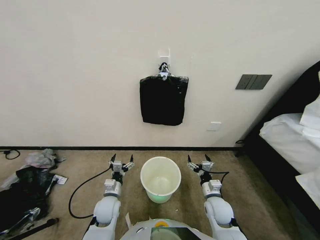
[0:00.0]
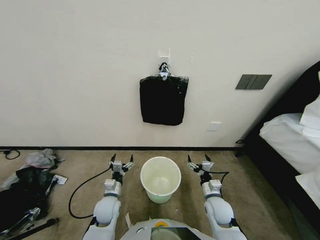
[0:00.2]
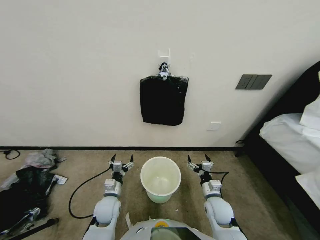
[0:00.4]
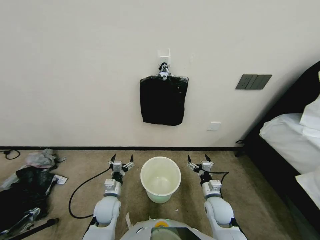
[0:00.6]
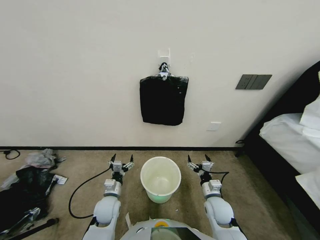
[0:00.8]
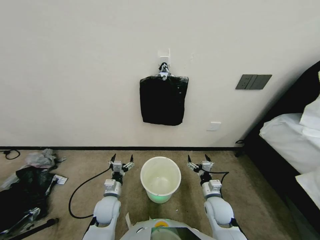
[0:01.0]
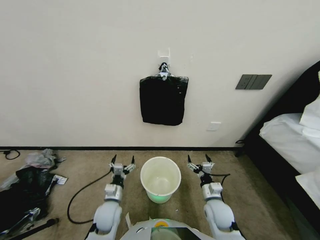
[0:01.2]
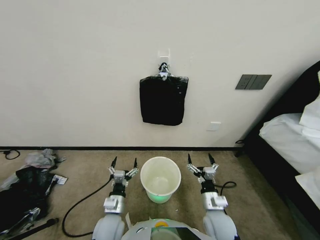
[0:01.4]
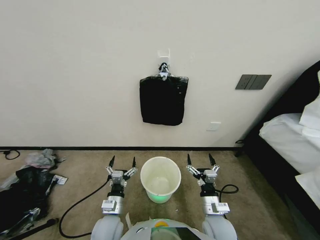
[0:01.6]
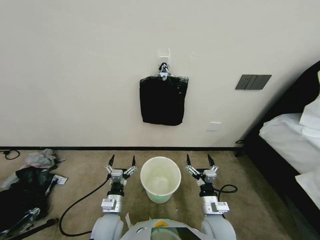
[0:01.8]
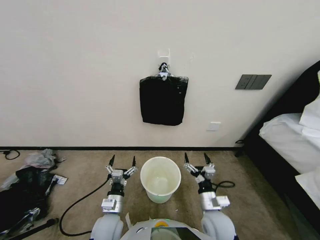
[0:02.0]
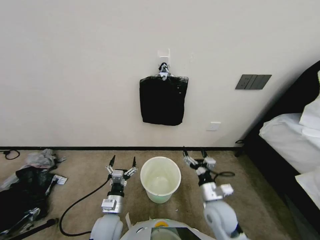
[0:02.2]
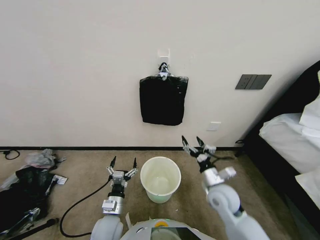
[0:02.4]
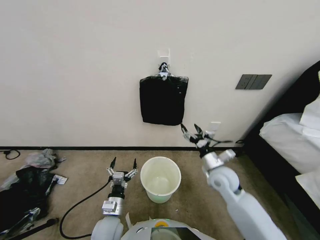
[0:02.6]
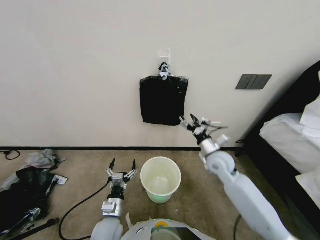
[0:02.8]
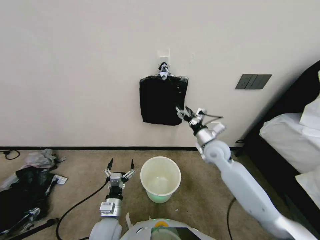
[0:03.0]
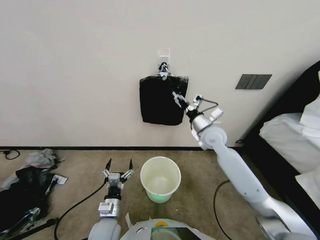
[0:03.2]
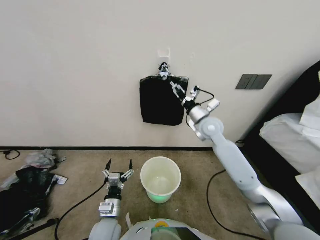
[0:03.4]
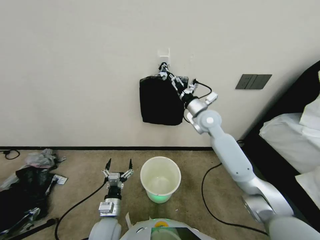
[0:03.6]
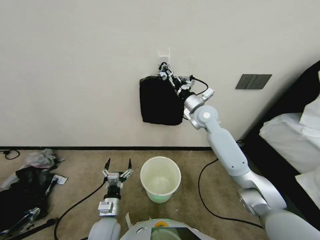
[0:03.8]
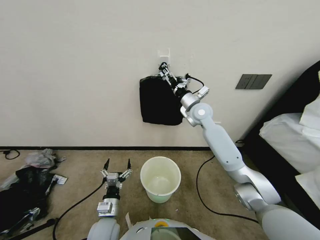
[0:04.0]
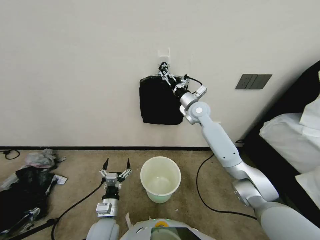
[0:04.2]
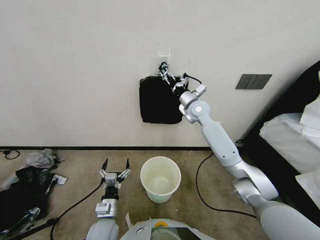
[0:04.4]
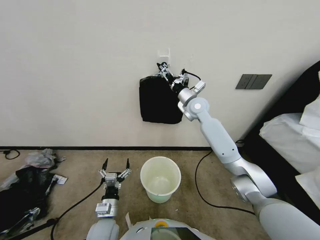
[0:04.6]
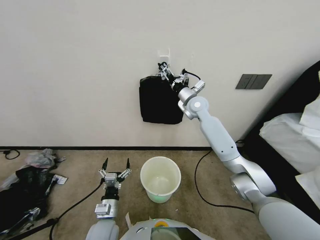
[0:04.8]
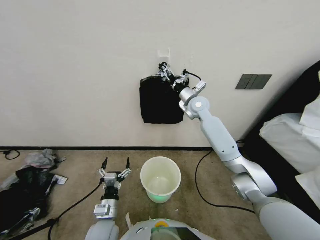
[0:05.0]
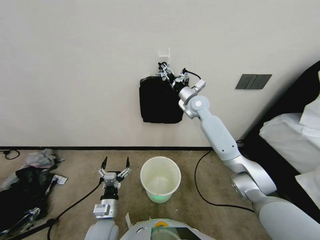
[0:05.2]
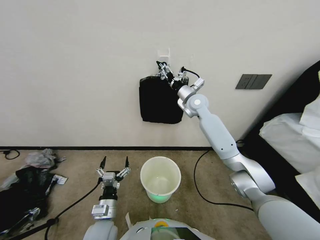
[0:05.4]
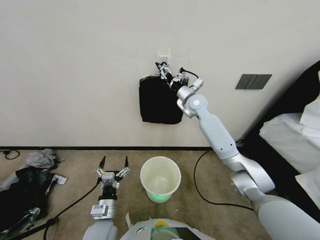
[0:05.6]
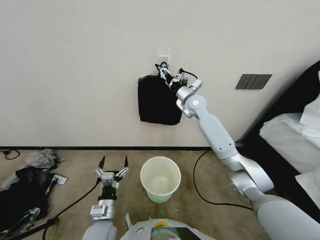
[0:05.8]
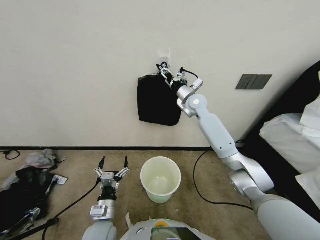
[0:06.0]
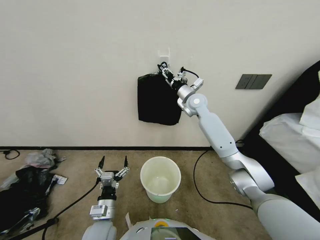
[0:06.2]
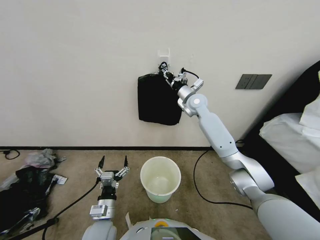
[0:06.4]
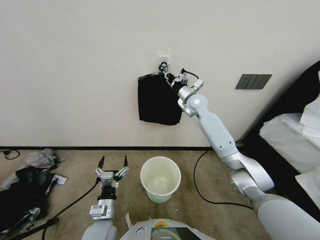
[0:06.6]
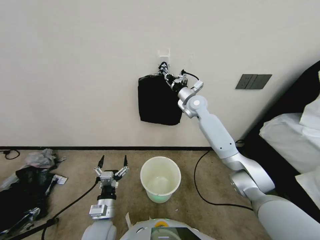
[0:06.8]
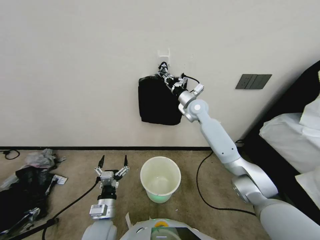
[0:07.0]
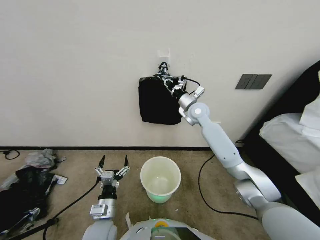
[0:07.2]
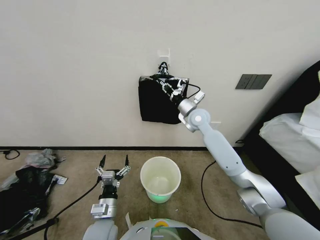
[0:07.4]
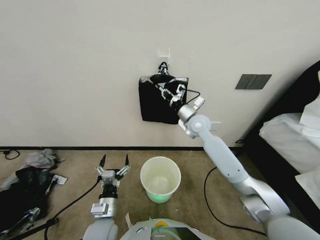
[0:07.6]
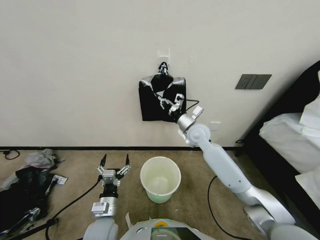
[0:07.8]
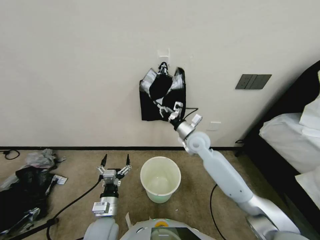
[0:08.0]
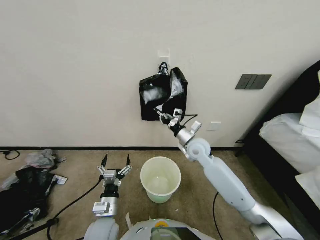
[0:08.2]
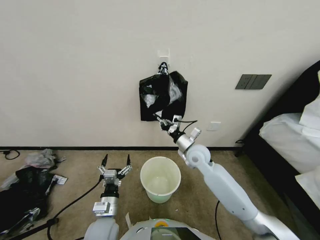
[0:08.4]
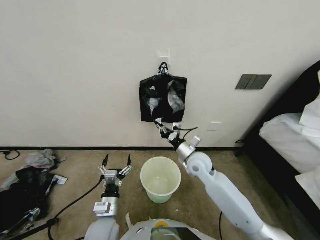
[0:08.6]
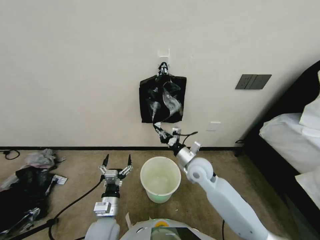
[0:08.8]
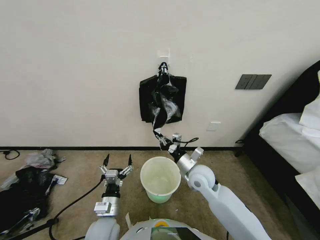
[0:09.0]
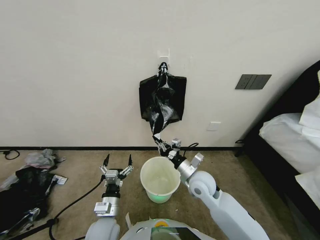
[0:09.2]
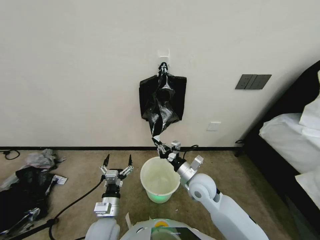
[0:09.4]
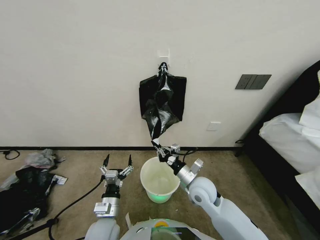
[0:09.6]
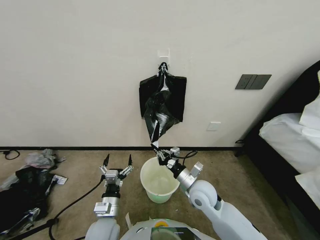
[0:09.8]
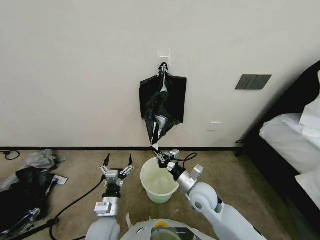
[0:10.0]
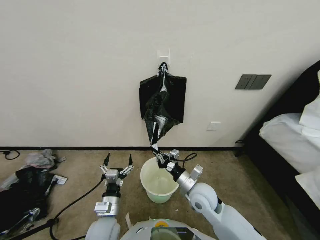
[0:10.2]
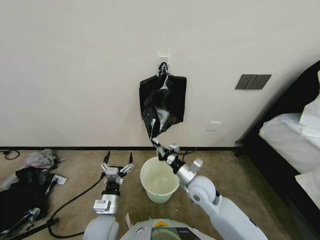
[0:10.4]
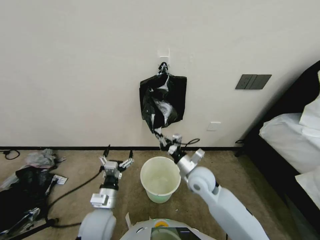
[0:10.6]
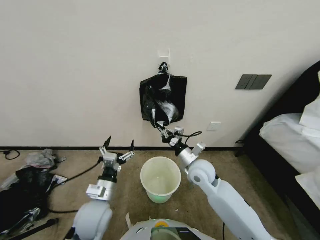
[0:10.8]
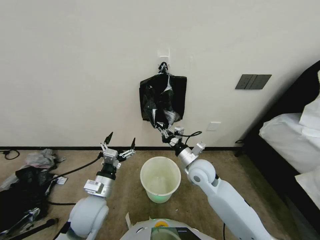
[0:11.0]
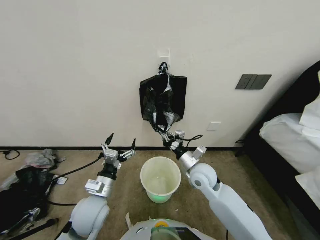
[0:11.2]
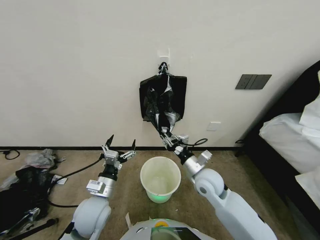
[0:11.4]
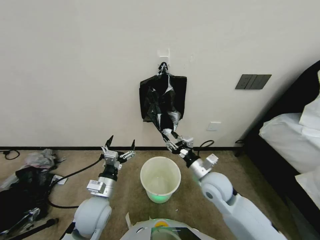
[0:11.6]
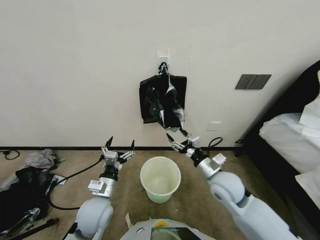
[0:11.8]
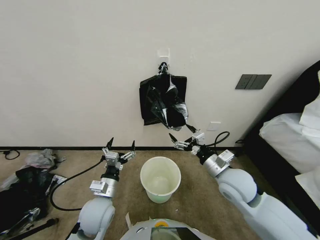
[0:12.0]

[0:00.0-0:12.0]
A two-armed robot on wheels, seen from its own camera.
Task of the whole recording: Place a trash bag onto the trash bin.
0:01.6 to 0:03.0: The right gripper is displaced forward and upward by about 25 cm.
0:03.0 to 0:04.4: The right gripper is displaced forward, upward and to the left by approximately 20 cm.
0:04.4 to 0:06.0: The right gripper closes.
0:06.0 to 0:07.6: The right gripper travels backward by roughly 10 cm, and closes its fingers.
0:07.6 to 0:09.0: The right gripper shifts about 20 cm backward and downward.
0:09.0 to 0:10.4: The right gripper travels backward by approximately 5 cm.
0:10.4 to 0:12.0: The right gripper goes roughly 10 cm upward and to the right, and opens its fingers, while the left gripper is displaced upward by some 5 cm.

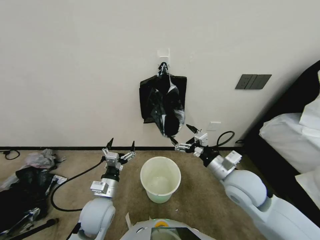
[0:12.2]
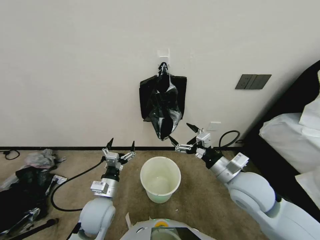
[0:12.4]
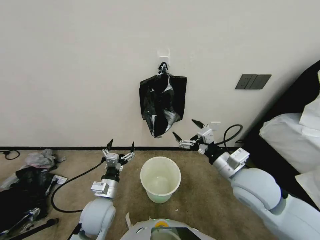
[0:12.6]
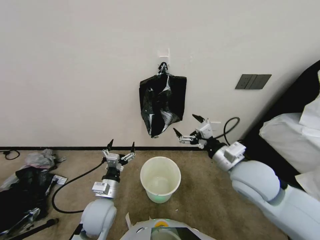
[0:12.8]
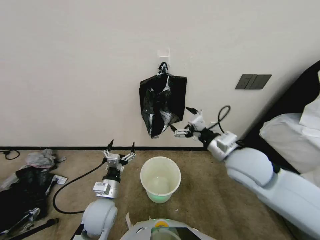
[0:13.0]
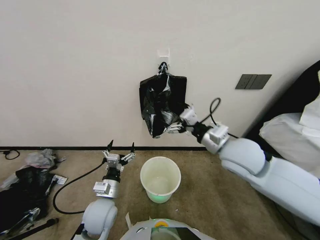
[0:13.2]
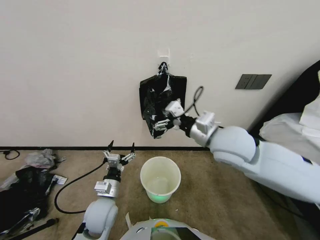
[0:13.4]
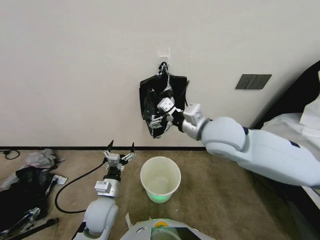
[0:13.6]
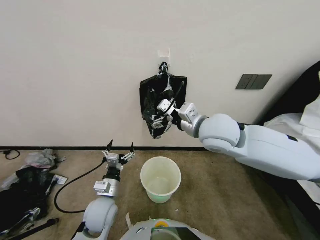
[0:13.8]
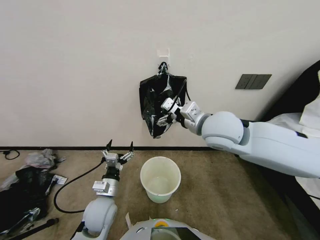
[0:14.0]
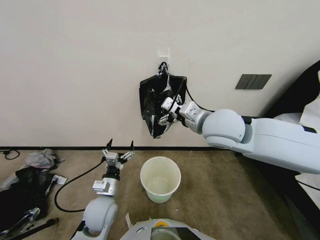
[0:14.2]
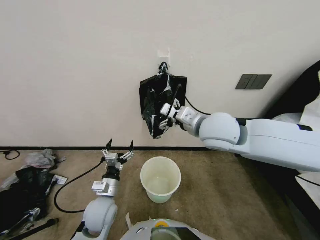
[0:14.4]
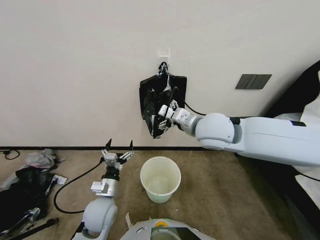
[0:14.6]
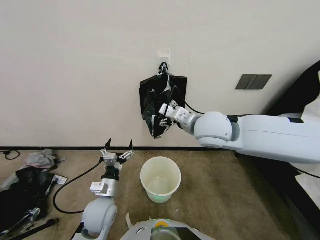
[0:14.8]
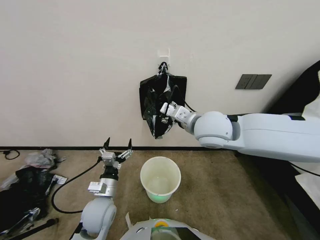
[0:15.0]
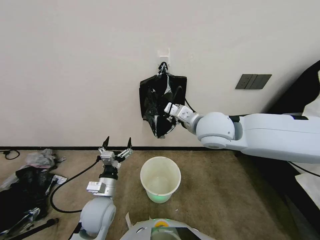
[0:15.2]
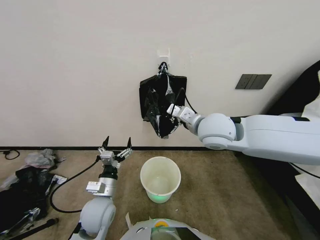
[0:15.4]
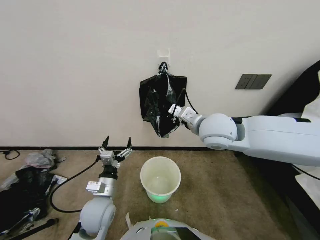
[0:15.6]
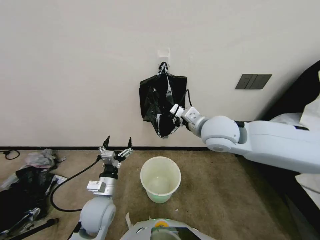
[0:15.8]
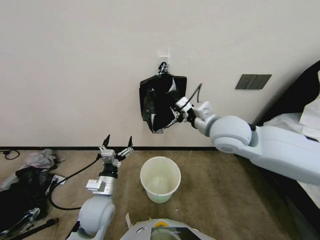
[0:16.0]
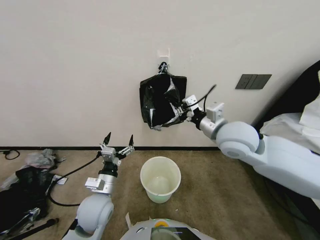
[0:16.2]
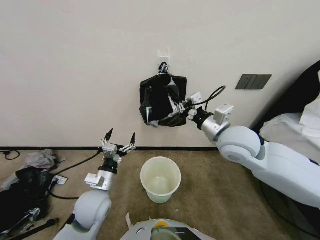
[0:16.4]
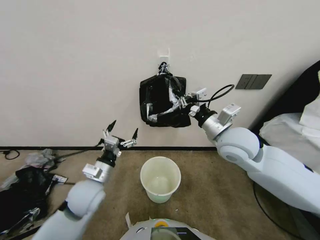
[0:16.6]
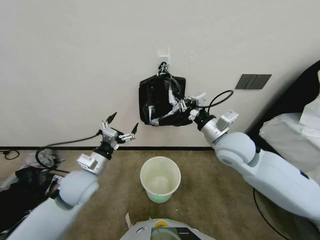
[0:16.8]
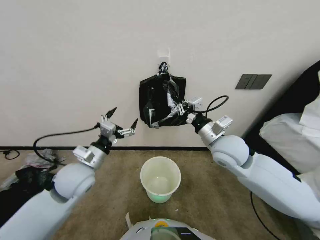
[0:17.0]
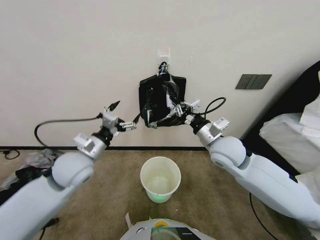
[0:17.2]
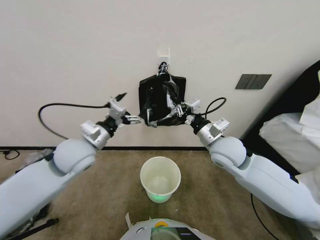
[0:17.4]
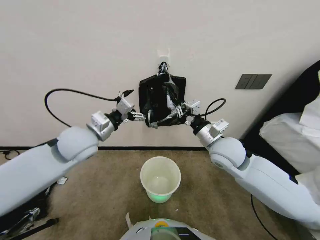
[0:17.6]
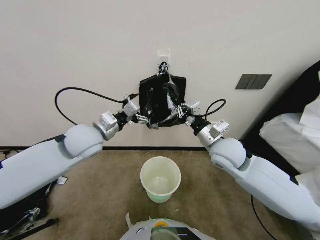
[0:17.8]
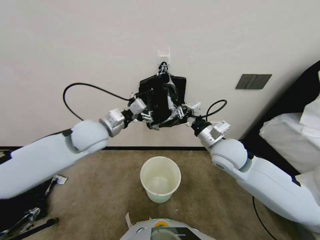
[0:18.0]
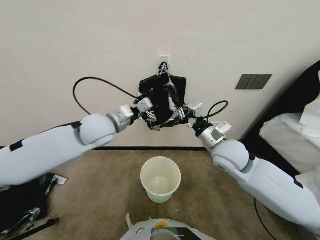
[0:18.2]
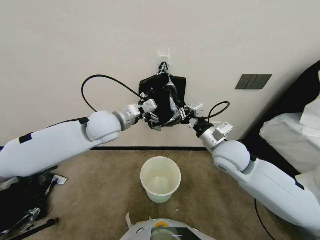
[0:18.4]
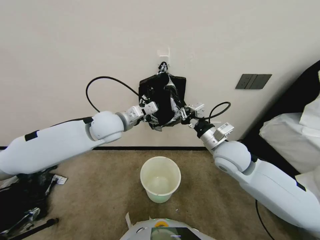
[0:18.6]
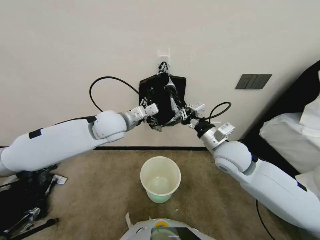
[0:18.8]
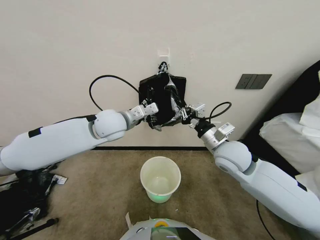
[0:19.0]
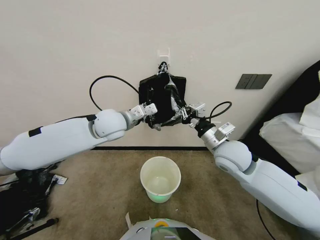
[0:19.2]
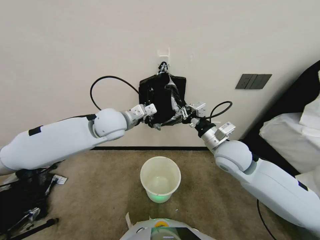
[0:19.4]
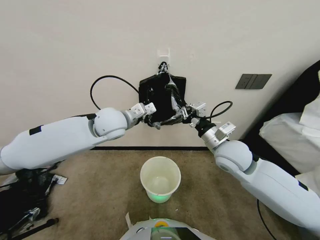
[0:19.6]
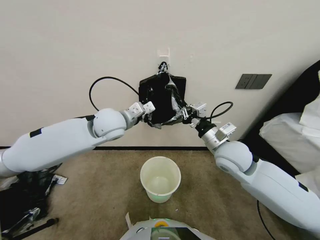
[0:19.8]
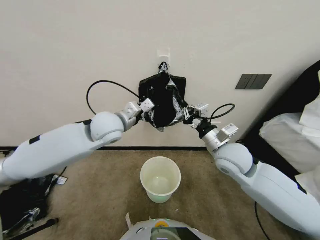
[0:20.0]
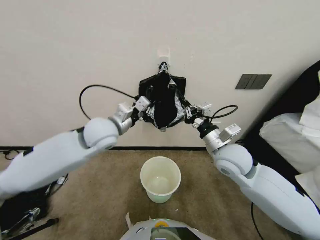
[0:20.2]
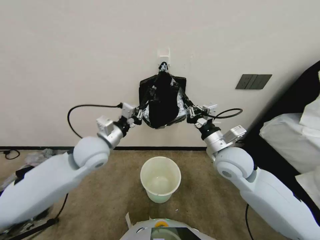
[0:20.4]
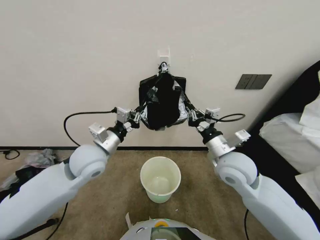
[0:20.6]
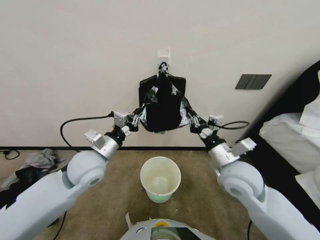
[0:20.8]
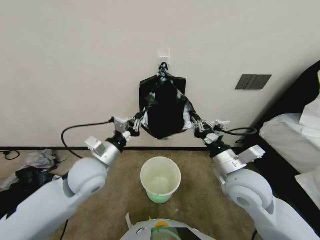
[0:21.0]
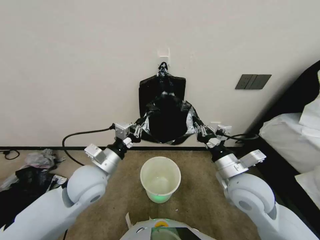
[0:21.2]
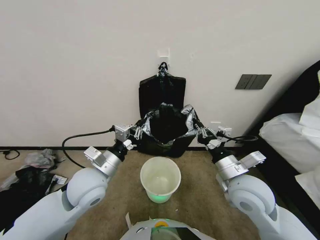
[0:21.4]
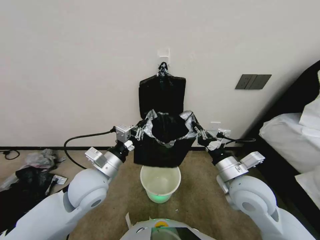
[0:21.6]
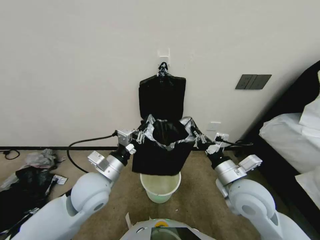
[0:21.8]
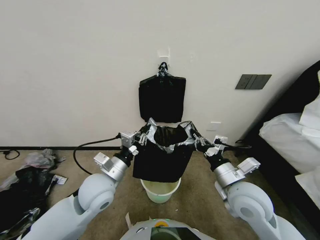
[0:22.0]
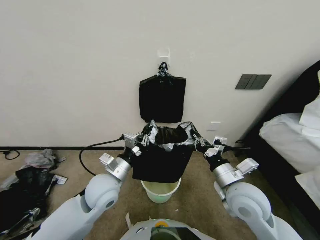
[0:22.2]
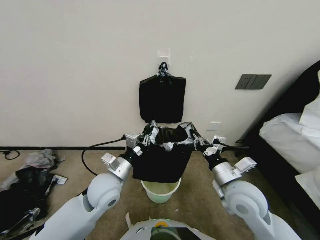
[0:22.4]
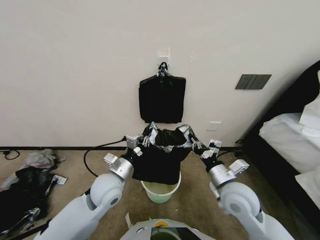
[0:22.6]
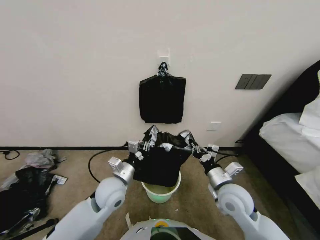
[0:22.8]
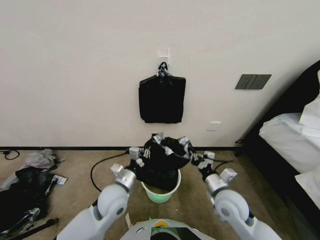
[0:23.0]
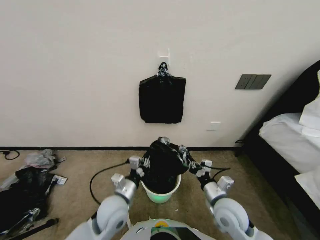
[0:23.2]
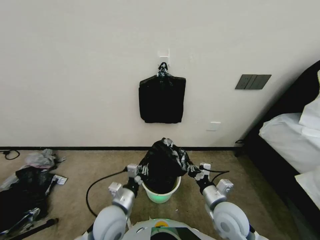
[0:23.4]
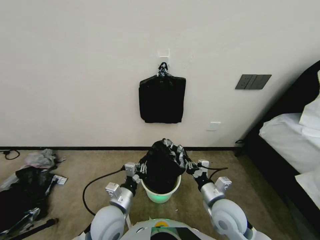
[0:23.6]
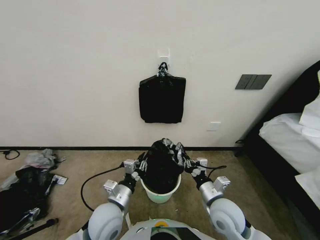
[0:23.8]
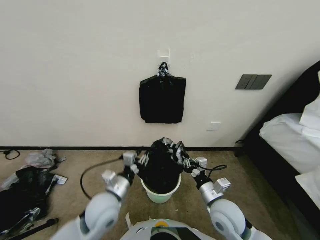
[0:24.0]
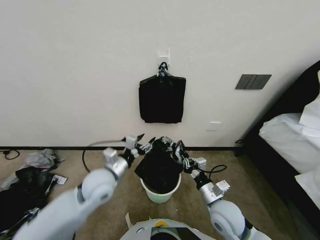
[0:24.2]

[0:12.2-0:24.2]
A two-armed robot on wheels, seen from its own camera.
Task of the whole recording: Place a trash bag onto the trash bin.
0:12.2 to 0:13.8: The right gripper heads upward, to the left and forward, covering about 20 cm.
0:13.8 to 0:15.2: The right gripper closes.
0:15.2 to 0:16.6: The right gripper travels to the right by some 5 cm, and closes. The left gripper ends up about 5 cm from where it was.
0:16.6 to 0:18.2: The right gripper moves downward, approximately 5 cm, while the left gripper heads upward and forward, covering some 20 cm.
0:18.2 to 0:19.8: The left gripper moves some 5 cm, and closes up.
0:19.8 to 0:21.2: The right gripper moves backward, some 10 cm, while the left gripper travels backward and downward by roughly 15 cm.
0:21.2 to 0:22.6: The left gripper heads downward, covering some 5 cm.
0:22.6 to 0:24.2: The right gripper moves downward, approximately 10 cm. The left gripper moves roughly 10 cm backward and comes back, and opens its fingers.
